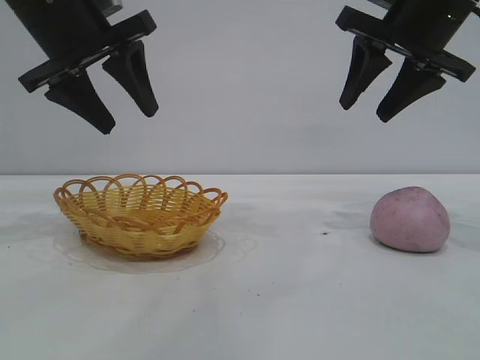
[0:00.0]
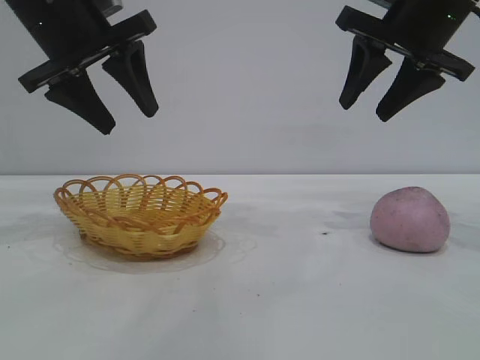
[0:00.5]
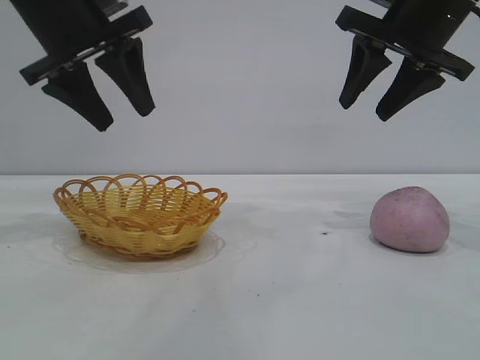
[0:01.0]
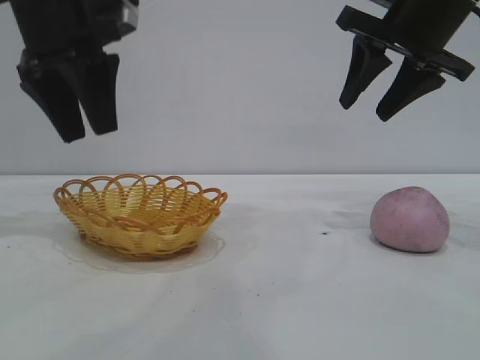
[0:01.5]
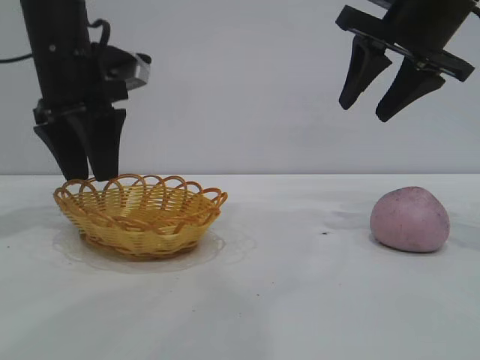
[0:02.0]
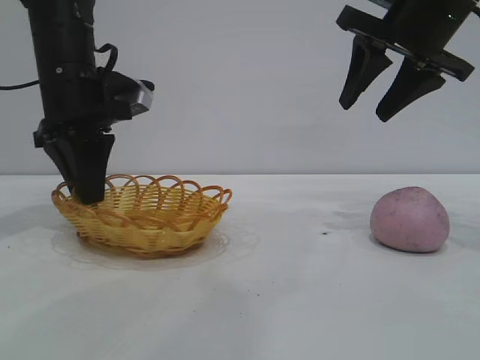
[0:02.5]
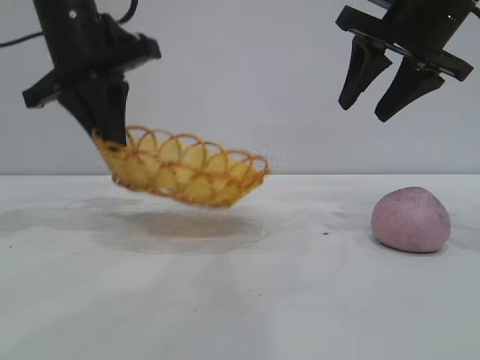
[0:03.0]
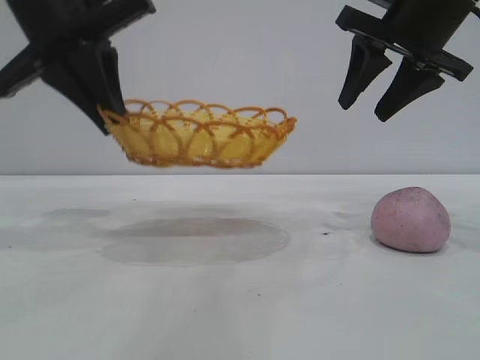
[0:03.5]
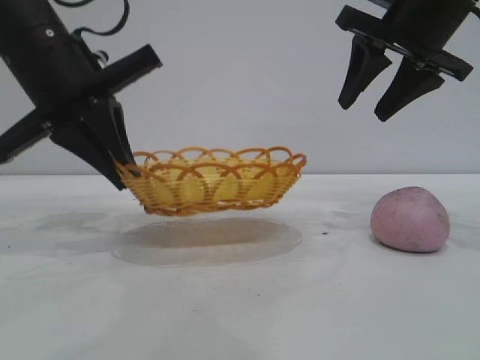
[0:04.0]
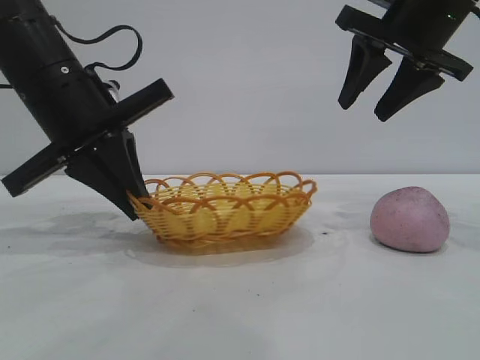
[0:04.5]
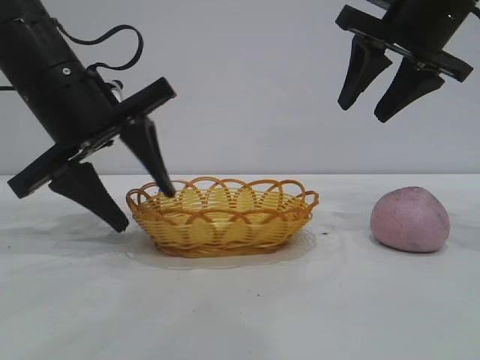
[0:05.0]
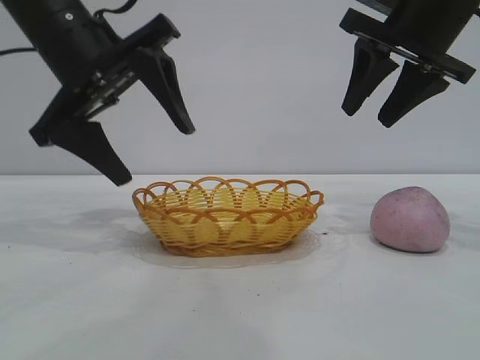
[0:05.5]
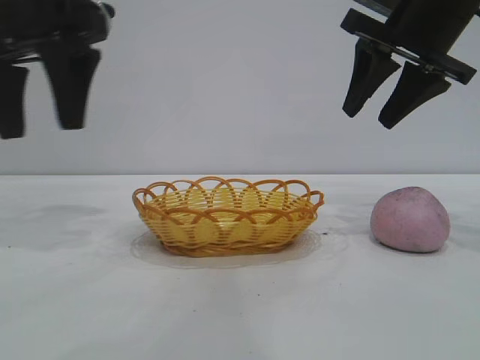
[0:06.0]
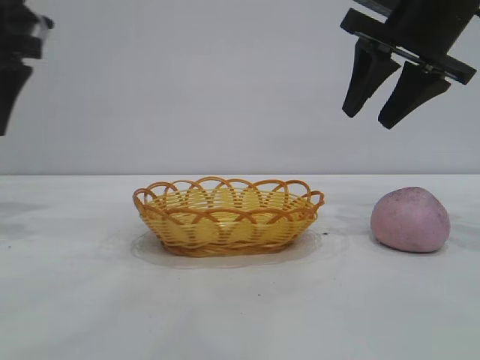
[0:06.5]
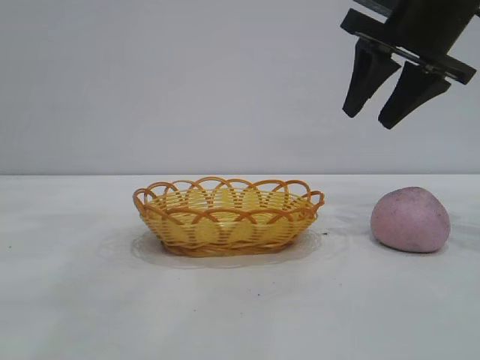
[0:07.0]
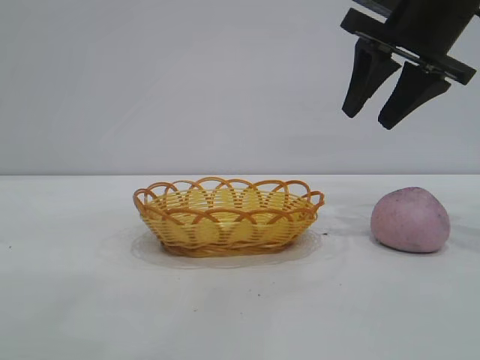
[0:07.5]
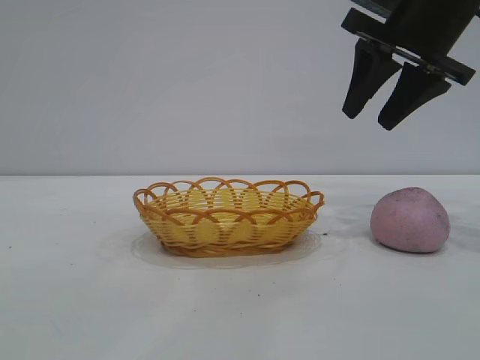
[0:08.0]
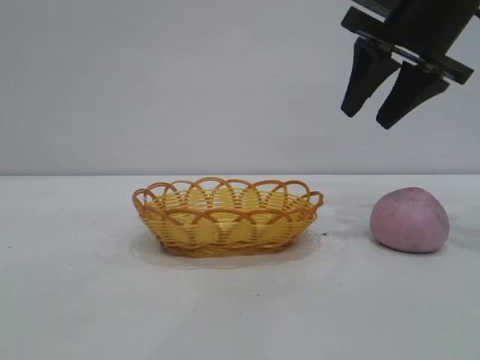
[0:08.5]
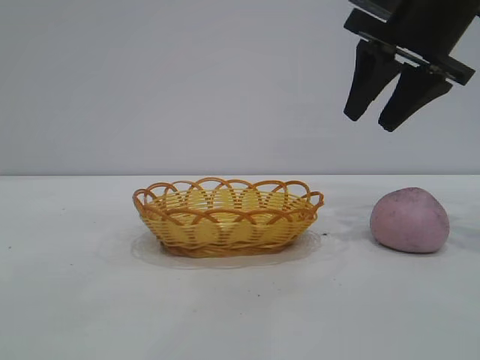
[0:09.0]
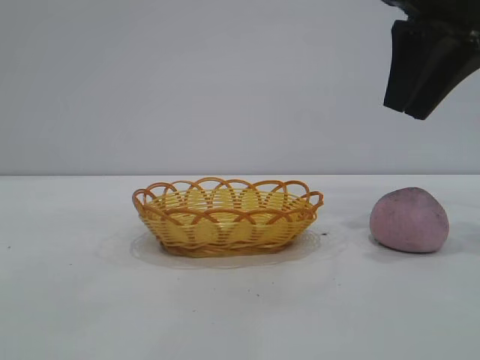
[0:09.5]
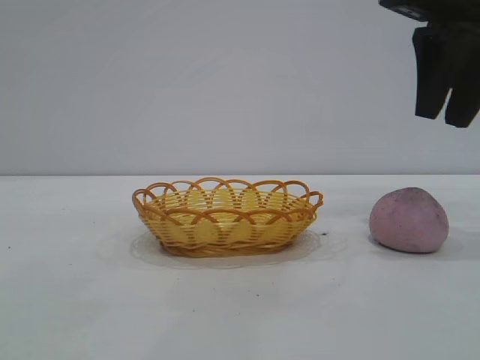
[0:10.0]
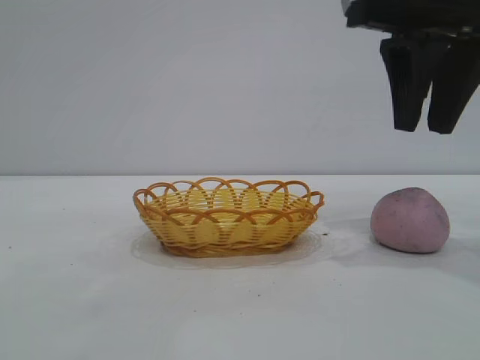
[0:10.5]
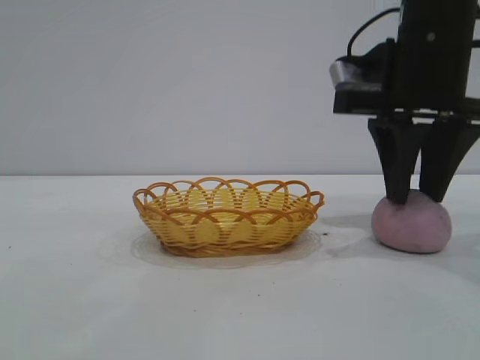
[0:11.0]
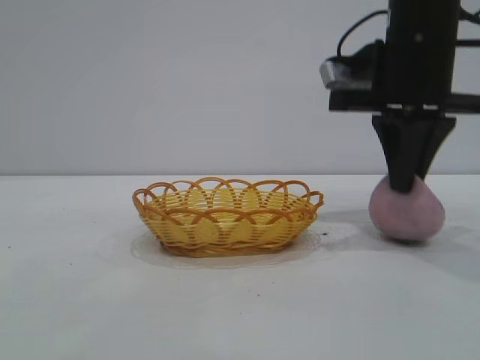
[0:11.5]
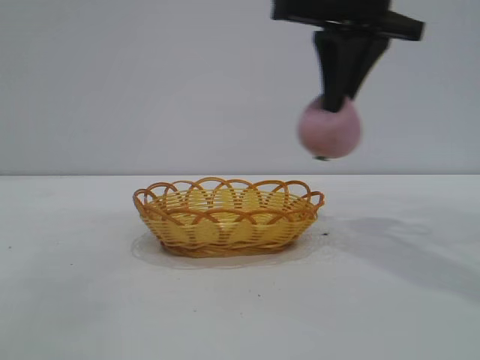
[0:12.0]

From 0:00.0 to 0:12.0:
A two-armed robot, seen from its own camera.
Task of the whole recording: pick up the peach and put it into the basket.
Step, from 0:00.0 to 0:05.5: Move the basket to the center of view.
Step, from 0:06.0 to 0:11.5: Pick up the peach.

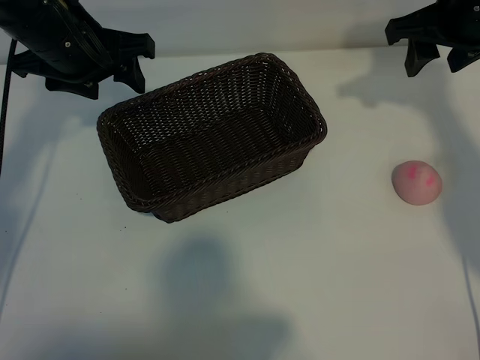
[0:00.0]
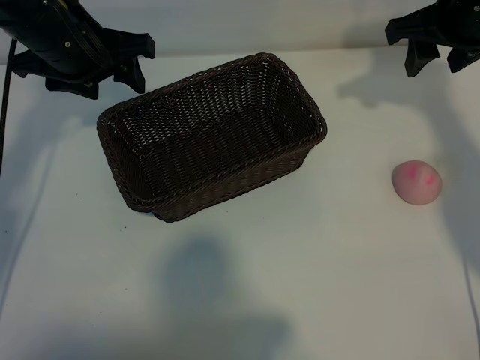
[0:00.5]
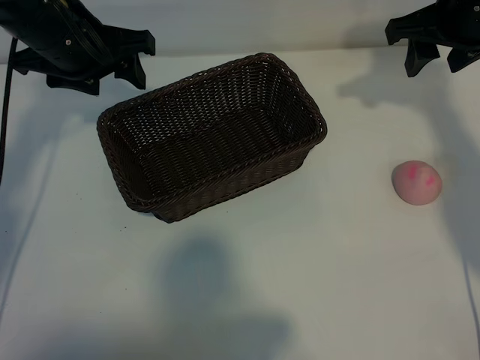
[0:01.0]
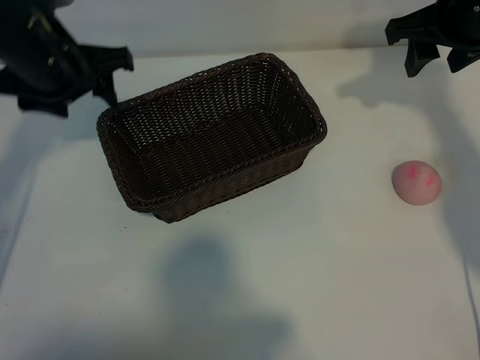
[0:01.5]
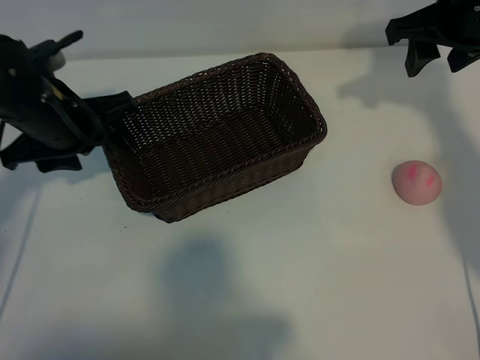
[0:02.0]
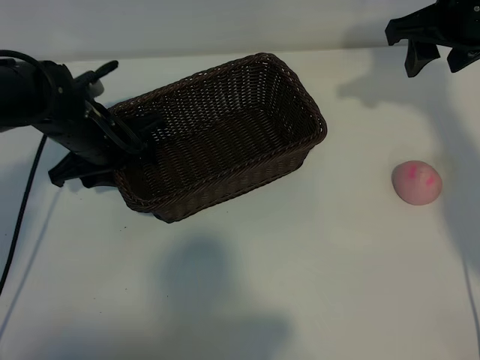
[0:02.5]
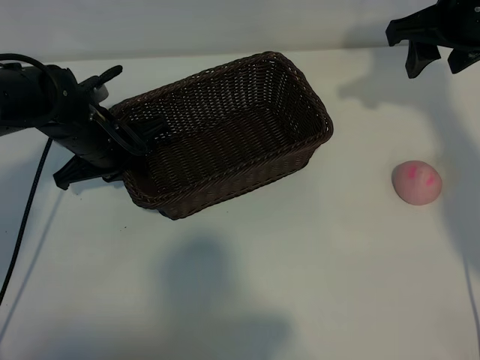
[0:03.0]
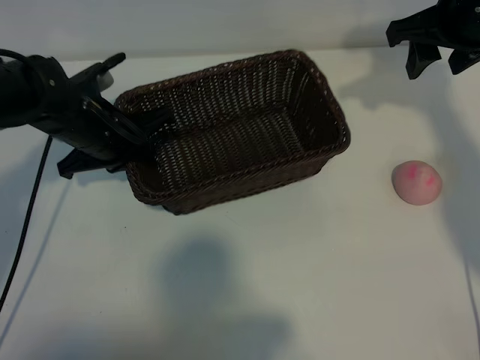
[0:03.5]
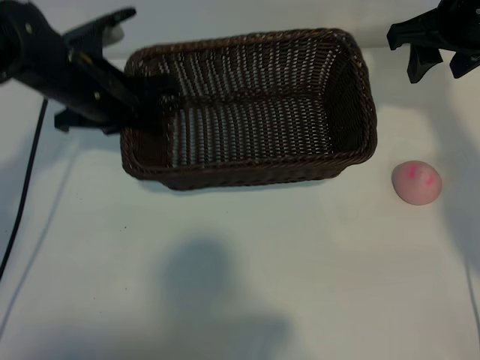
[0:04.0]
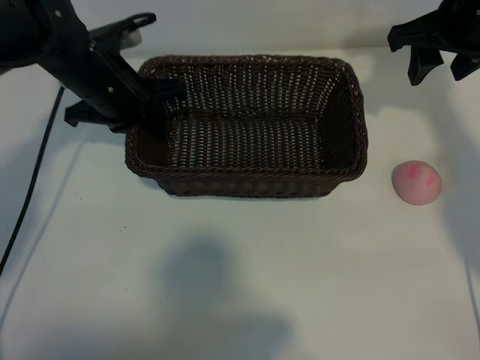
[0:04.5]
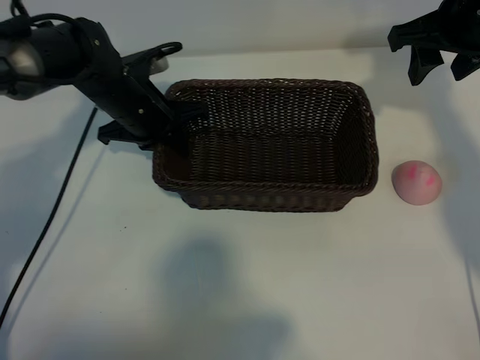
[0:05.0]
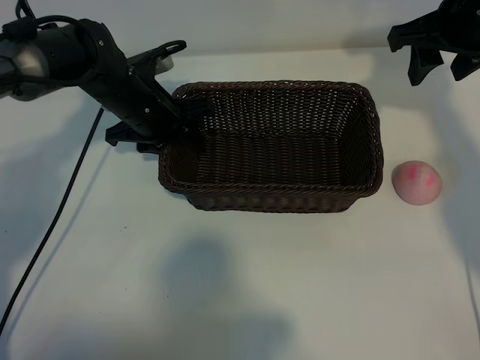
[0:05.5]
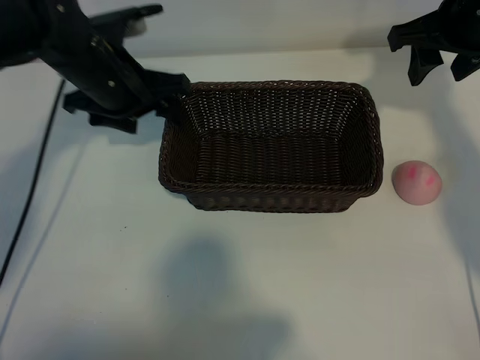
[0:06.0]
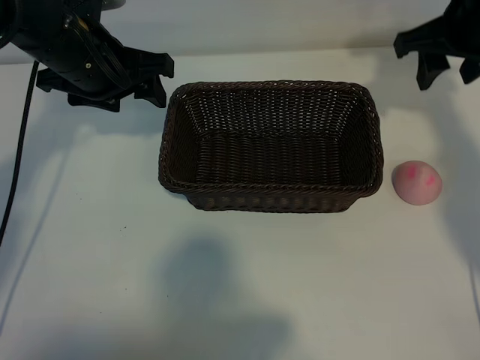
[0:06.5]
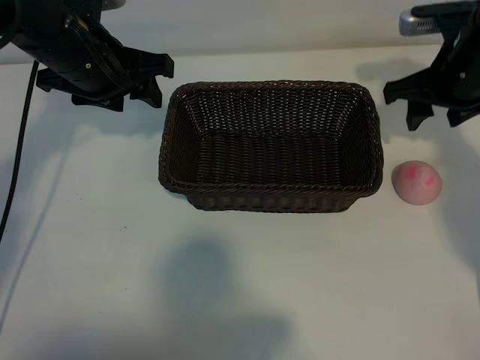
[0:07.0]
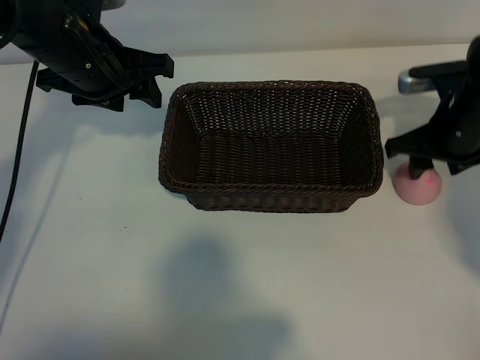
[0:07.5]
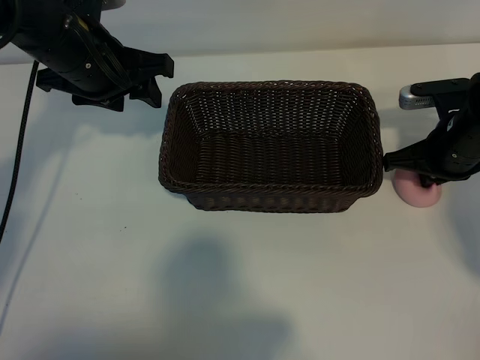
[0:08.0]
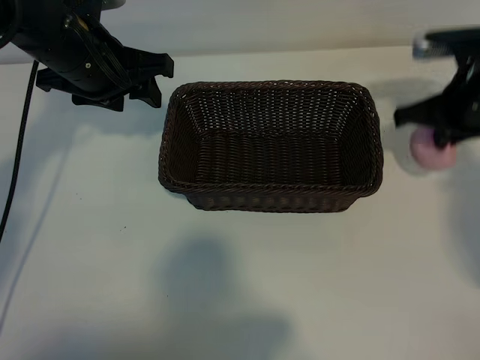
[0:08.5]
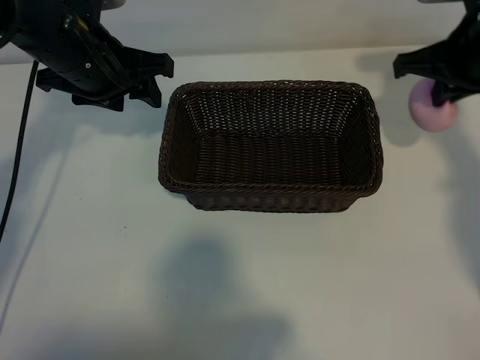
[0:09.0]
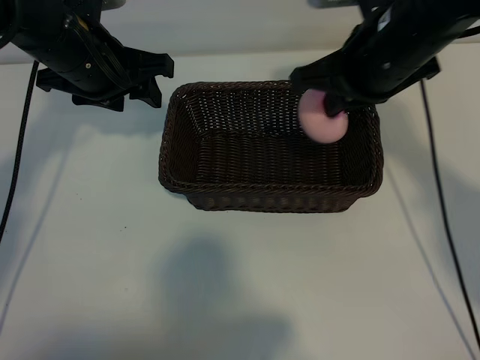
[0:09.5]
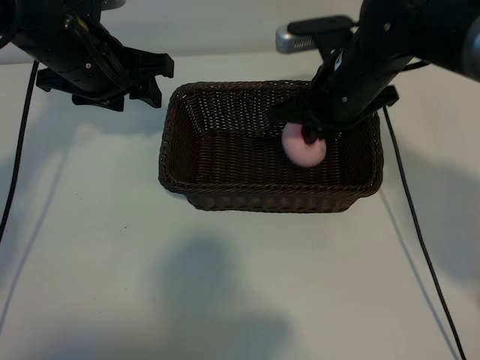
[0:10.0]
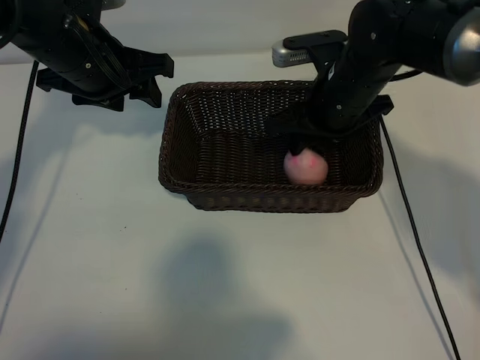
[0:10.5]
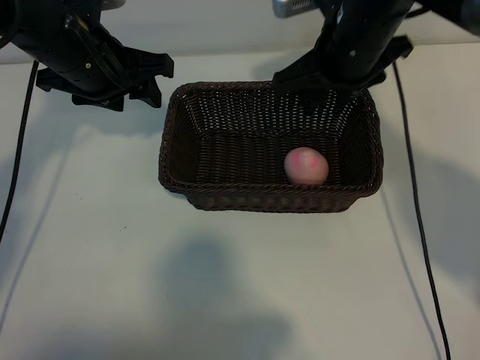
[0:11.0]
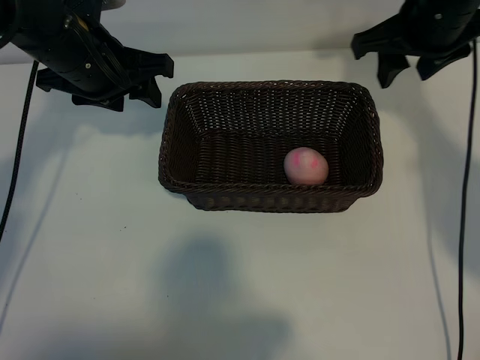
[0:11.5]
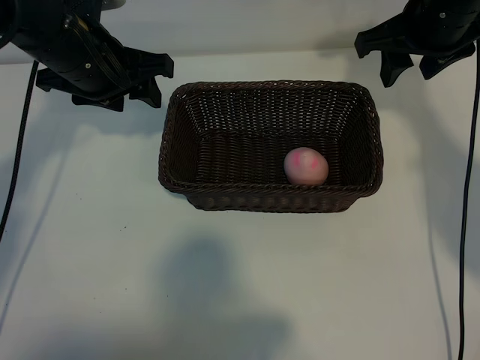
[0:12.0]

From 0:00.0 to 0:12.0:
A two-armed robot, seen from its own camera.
Task of the whole recording: pick up the peach and put it into the basket.
Step, from 0:01.0 to 0:03.0: Grasp the basket with left gripper.
Step, from 0:03.5 to 0:05.5: Place the basket in the center of view with left gripper.
Step, from 0:06.0 to 0:08.0: Grasp the peach with right gripper.
Step, from 0:08.5 to 0:10.5: Place the peach in the basket with right gripper.
